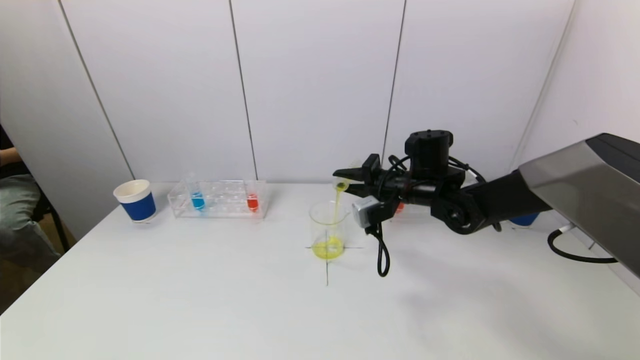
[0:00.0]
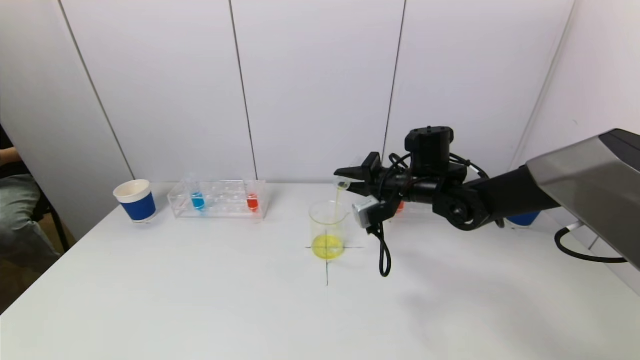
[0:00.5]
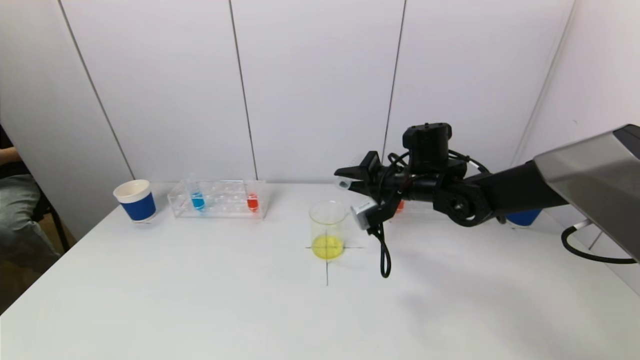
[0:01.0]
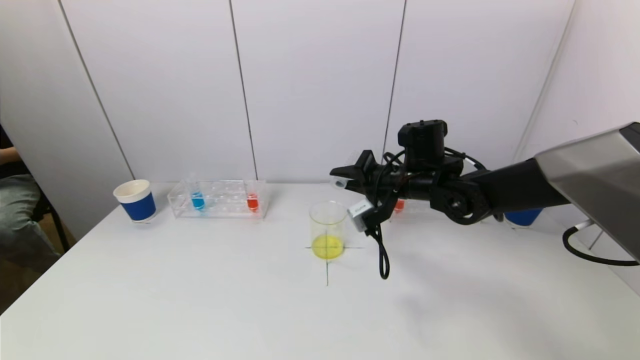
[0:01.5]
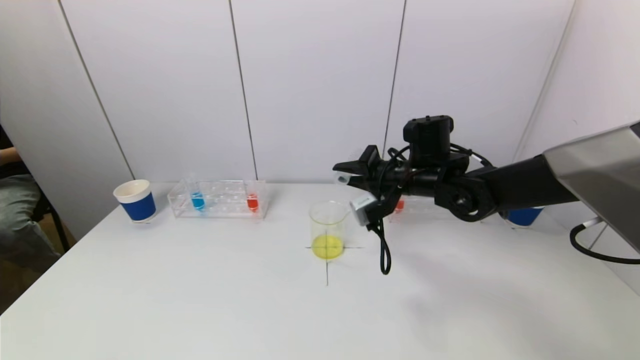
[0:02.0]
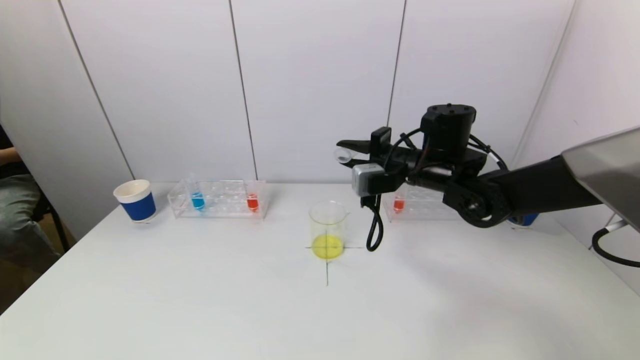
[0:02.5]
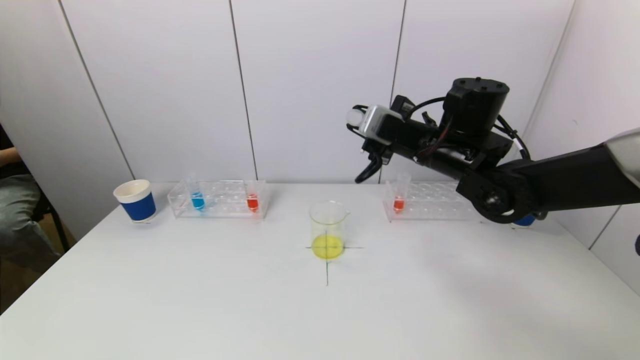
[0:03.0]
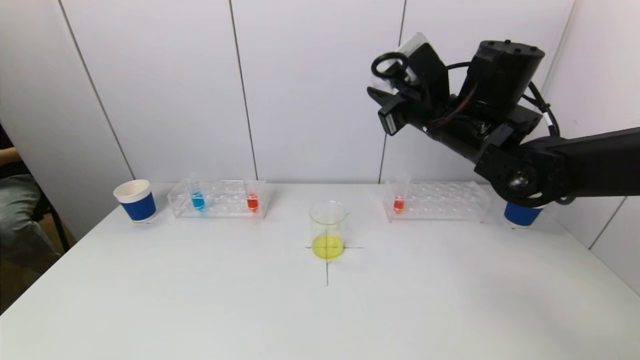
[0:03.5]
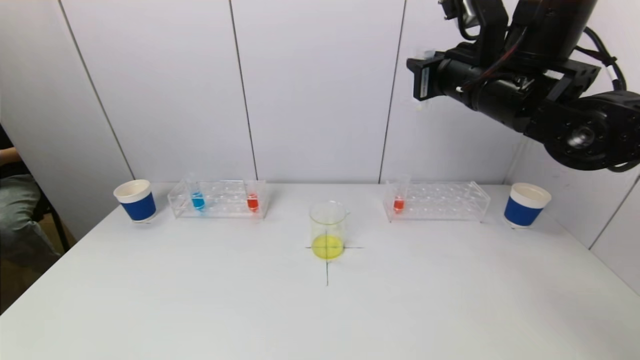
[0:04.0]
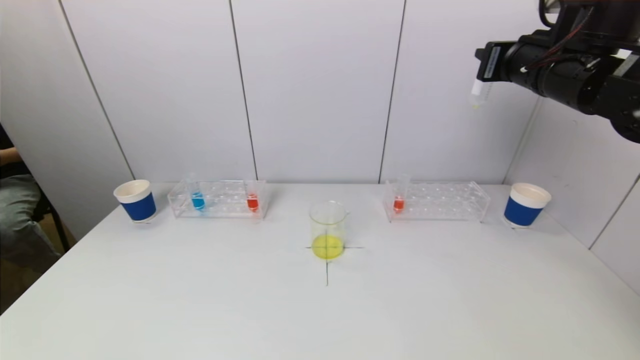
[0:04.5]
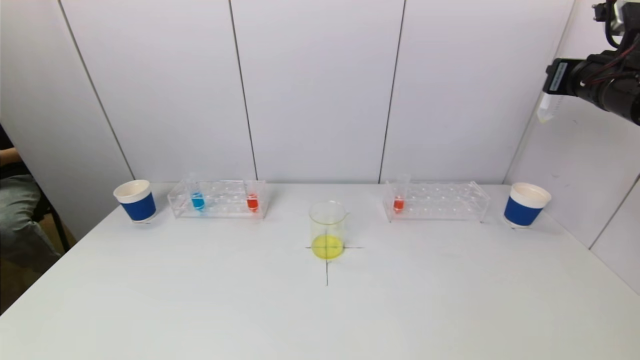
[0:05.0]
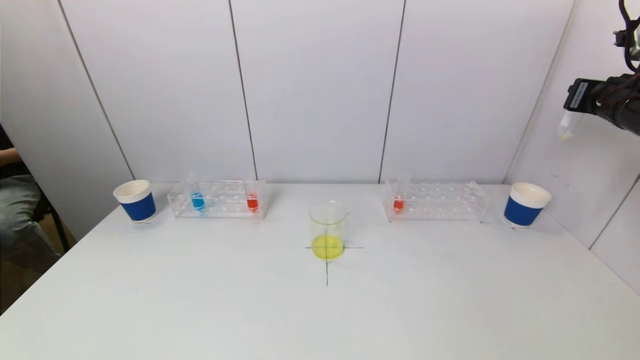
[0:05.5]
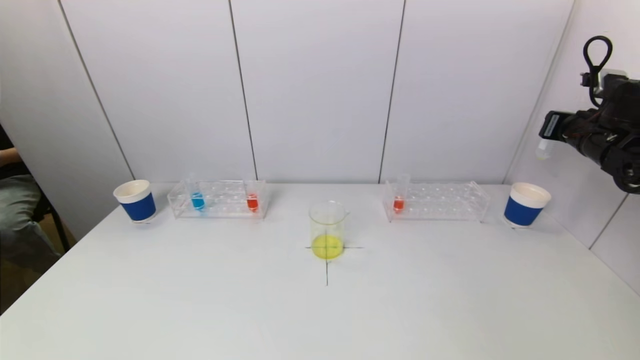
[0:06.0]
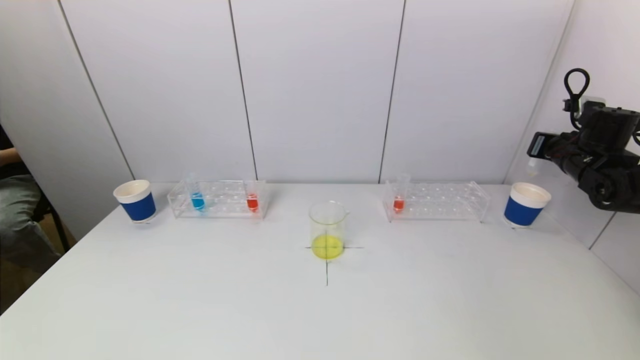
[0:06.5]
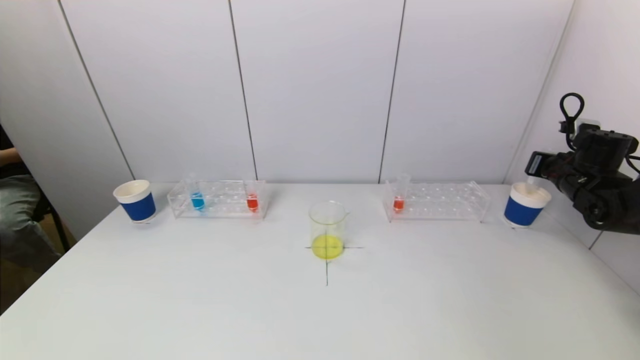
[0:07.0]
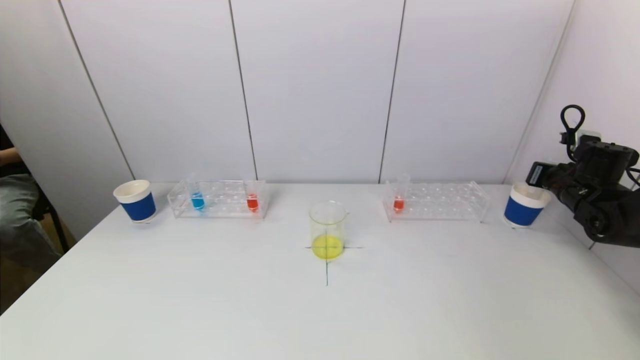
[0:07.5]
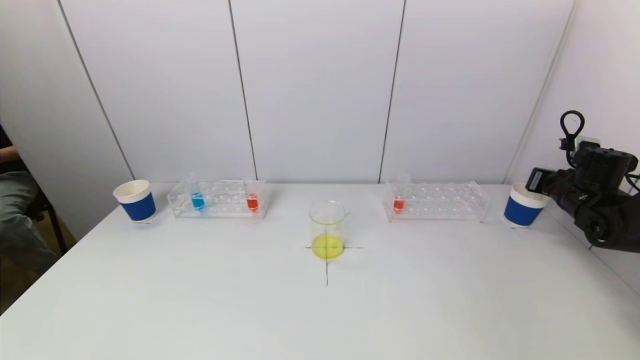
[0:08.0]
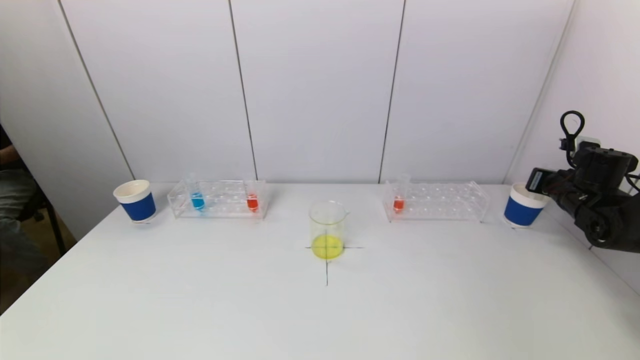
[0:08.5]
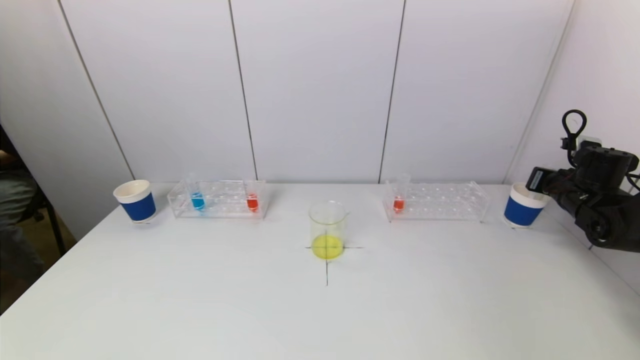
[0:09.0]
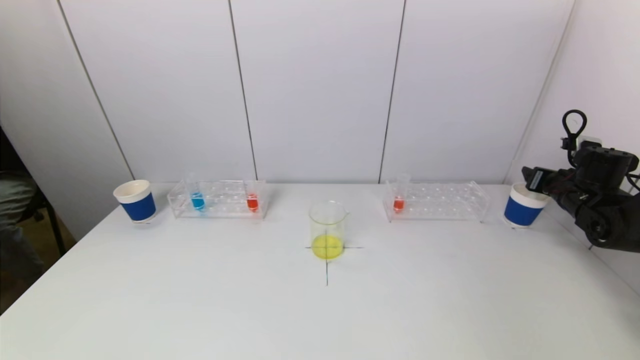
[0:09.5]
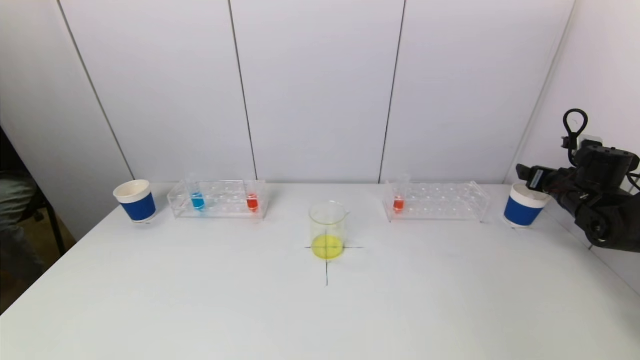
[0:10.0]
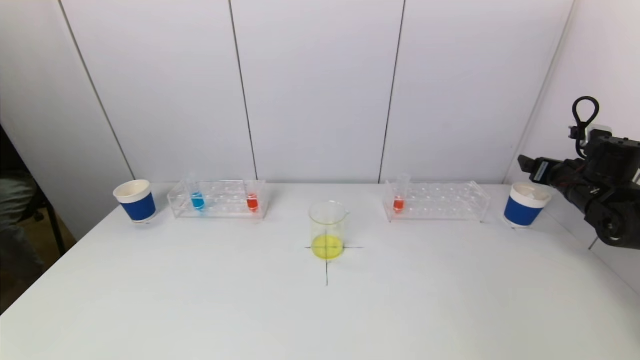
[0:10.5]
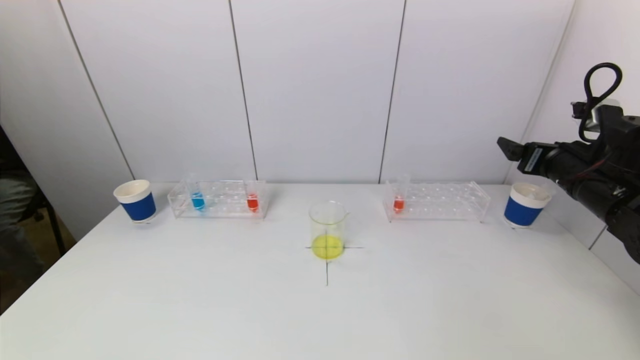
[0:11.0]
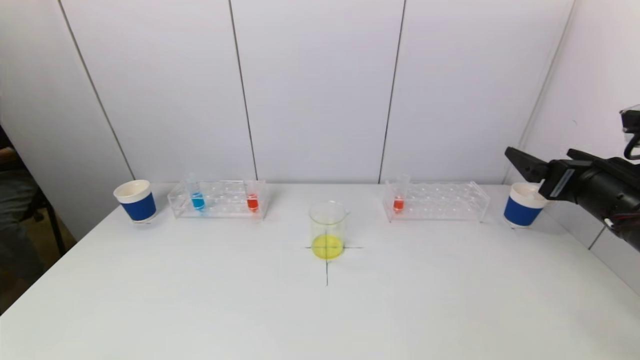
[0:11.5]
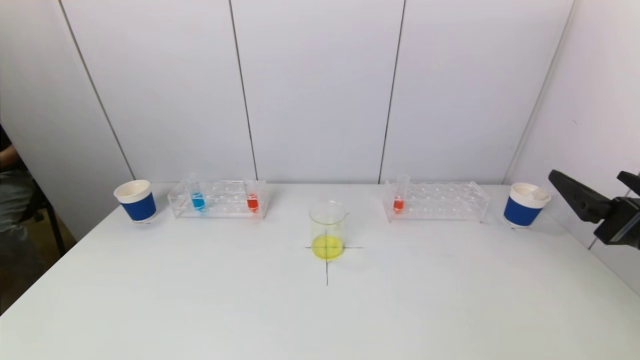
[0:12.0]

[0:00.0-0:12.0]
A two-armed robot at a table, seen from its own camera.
Task of the whole recording: pick up a test tube with pigment on left test tube rack and a test tube with pigment on right test tube rack by grippers and pour them into the beaker.
Step, 0:02.0 to 0:09.5: Place the test tube into the paper cup with the right gripper.
0:00.0 to 0:02.0: The grippers make only small movements.
0:02.0 to 0:04.0: The right gripper goes some 15 cm upward.
0:04.0 to 0:06.0: The right gripper moves to the right and downward, about 25 cm.
0:06.0 to 0:08.0: The right gripper goes about 10 cm downward.
0:08.0 to 0:10.0: The right gripper opens.
0:10.0 to 0:12.0: The right gripper is displaced backward, to the left and upward by some 30 cm.

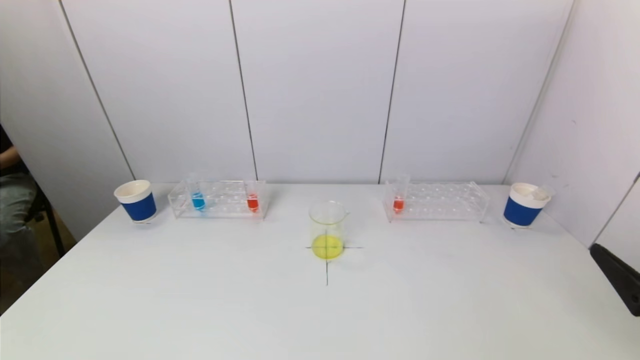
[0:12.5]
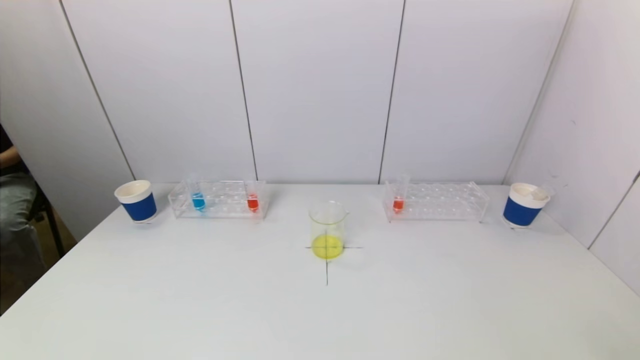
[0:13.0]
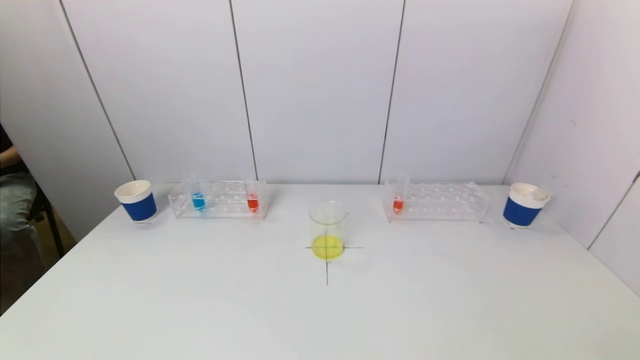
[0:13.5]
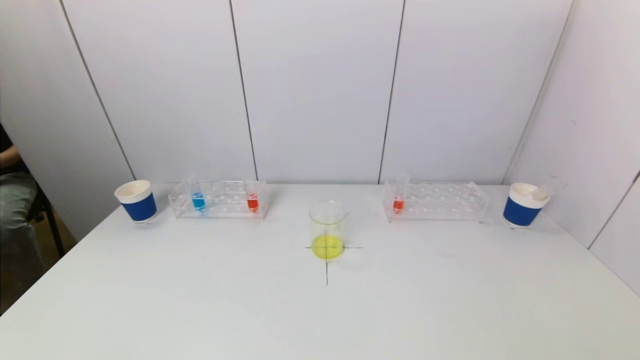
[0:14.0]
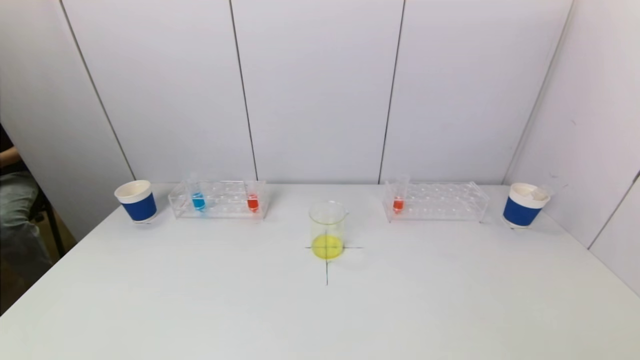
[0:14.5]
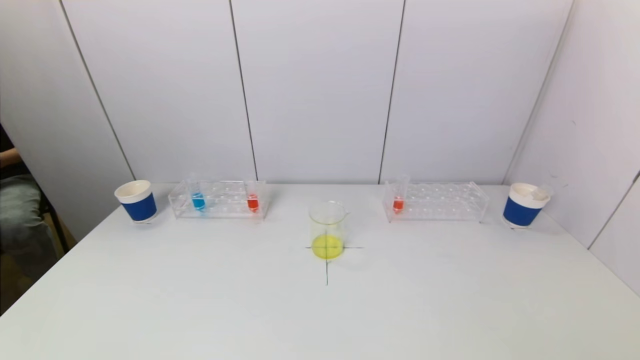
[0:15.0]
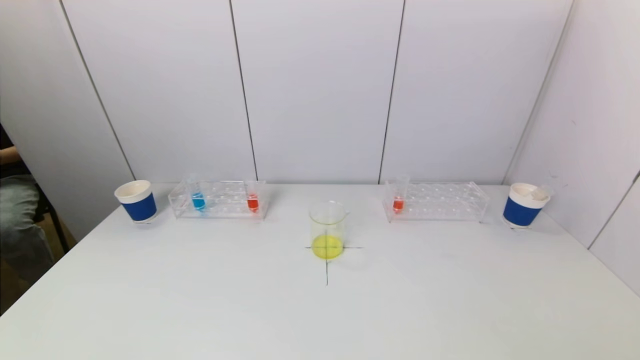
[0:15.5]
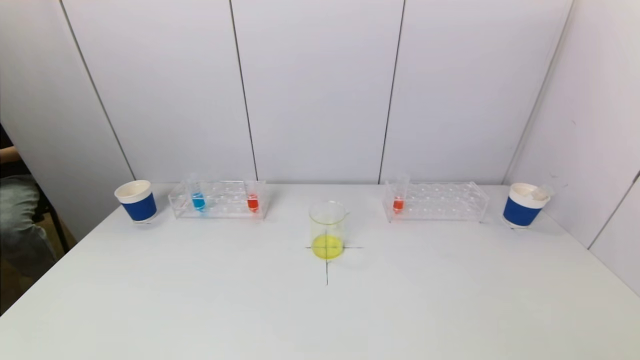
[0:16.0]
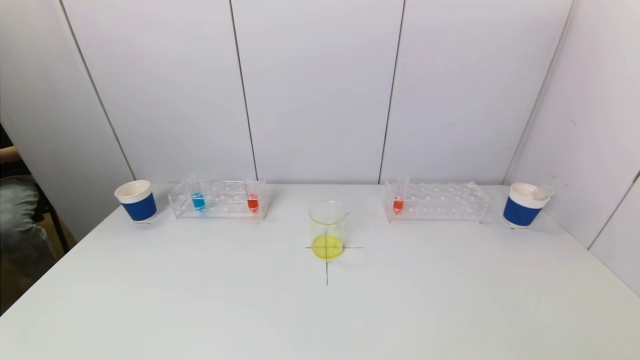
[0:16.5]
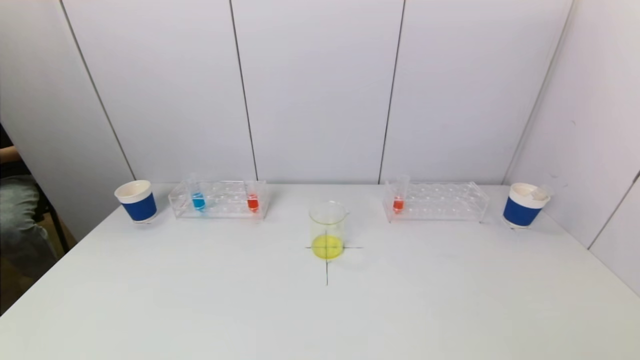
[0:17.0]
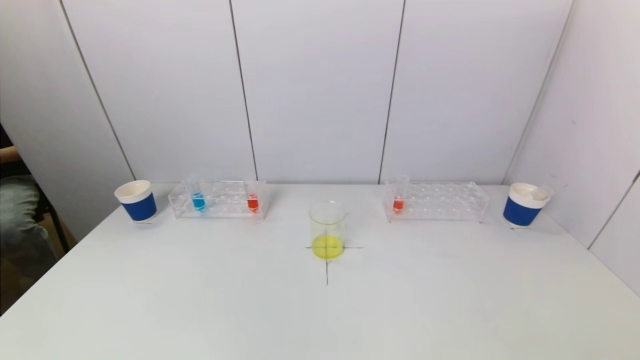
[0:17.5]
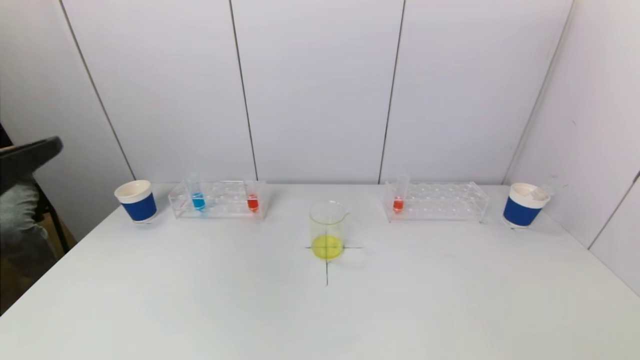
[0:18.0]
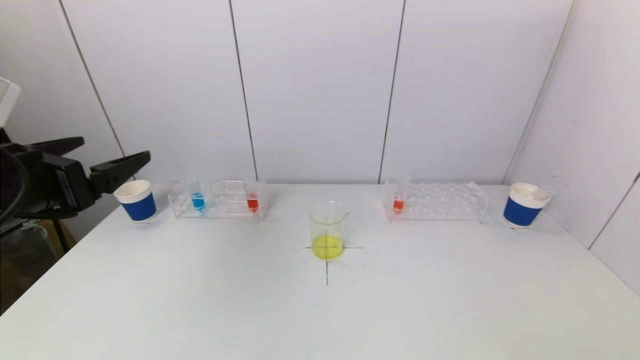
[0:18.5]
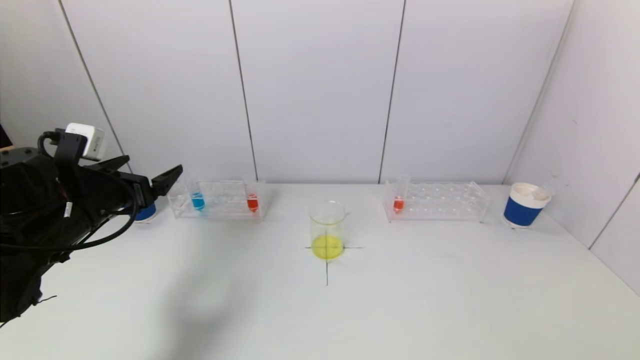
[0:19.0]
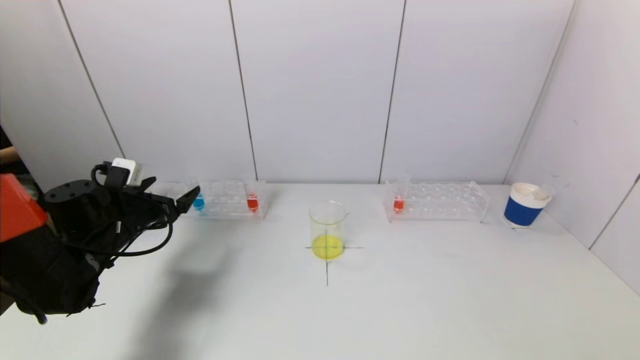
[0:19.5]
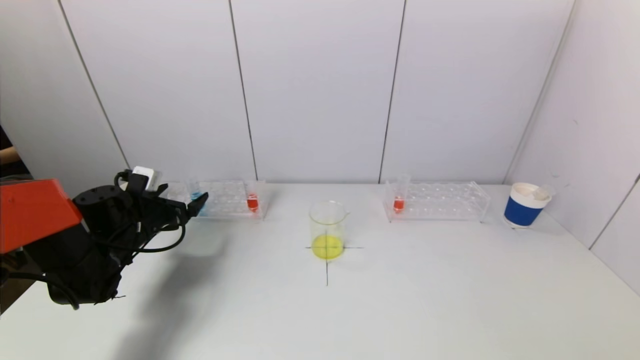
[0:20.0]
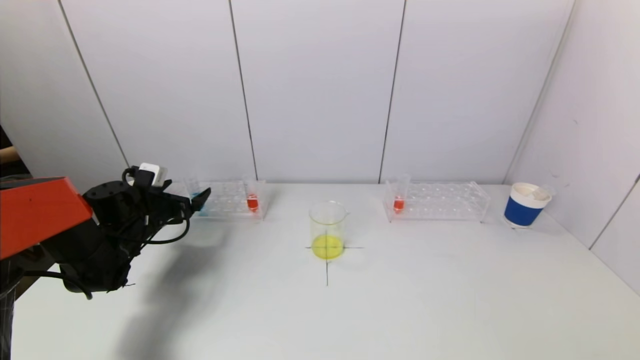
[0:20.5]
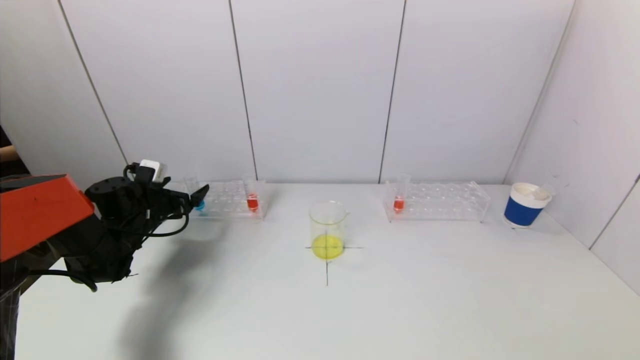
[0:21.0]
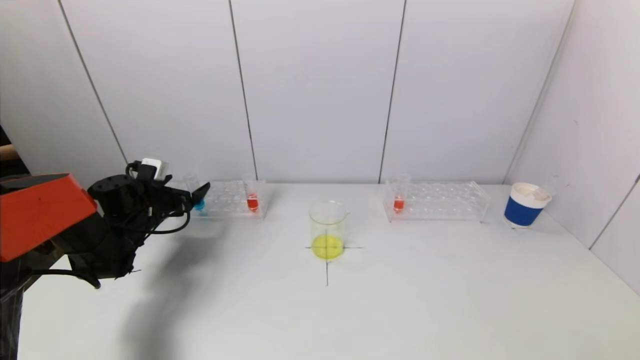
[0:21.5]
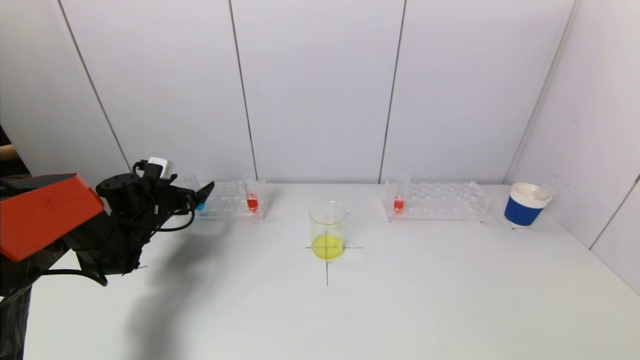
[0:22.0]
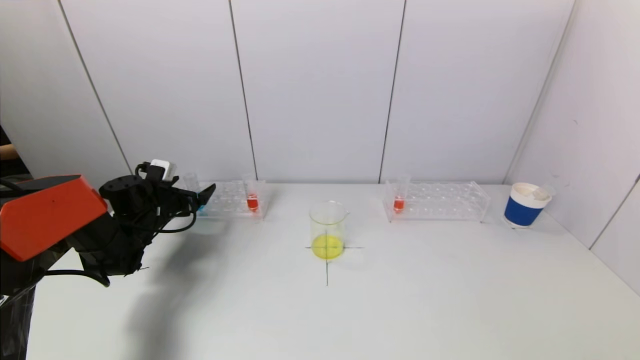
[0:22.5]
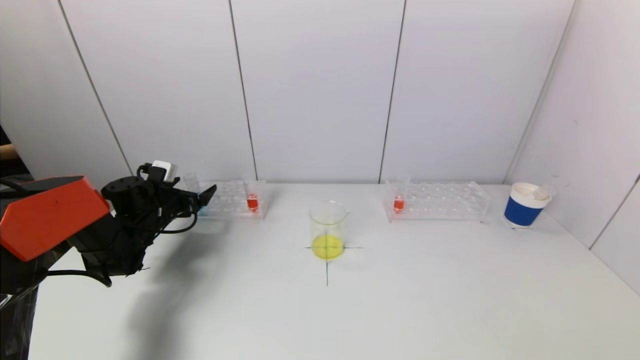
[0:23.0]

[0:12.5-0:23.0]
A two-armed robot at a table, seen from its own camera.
Task of the whole recording: pick up a test tube with pigment on left test tube rack and a test tube with pigment on right test tube rack by grippers and pour them into the beaker.
0:12.5 to 0:14.5: The right gripper heads backward and downward, covering roughly 15 cm.
0:14.5 to 0:16.5: Neither gripper changes place.
0:16.5 to 0:19.0: The left gripper travels forward by some 30 cm.
0:19.0 to 0:21.0: The left gripper shifts some 15 cm forward and downward.
0:21.0 to 0:23.0: There are only small adjustments of the grippers.
